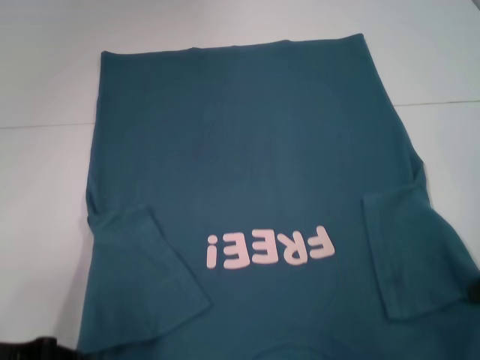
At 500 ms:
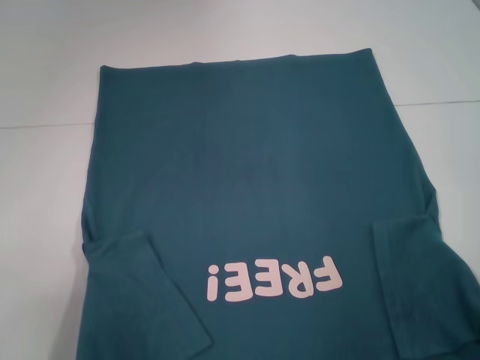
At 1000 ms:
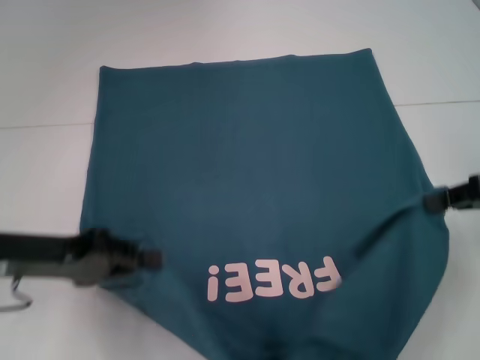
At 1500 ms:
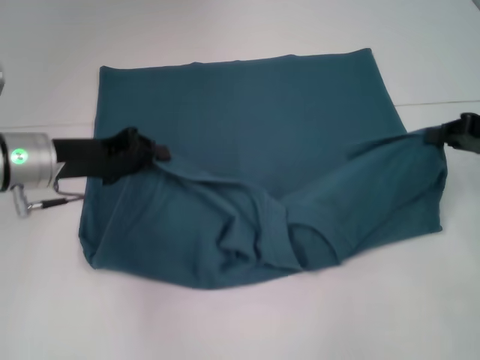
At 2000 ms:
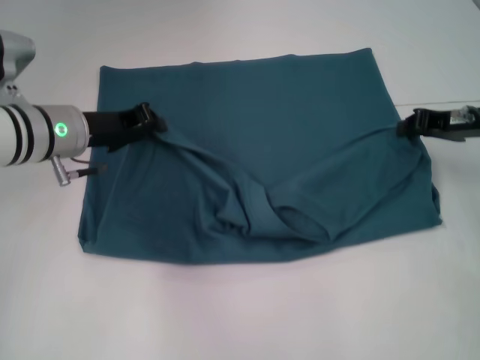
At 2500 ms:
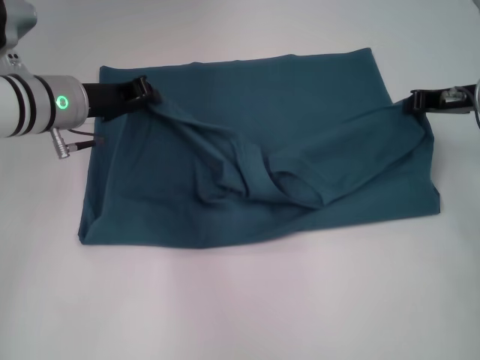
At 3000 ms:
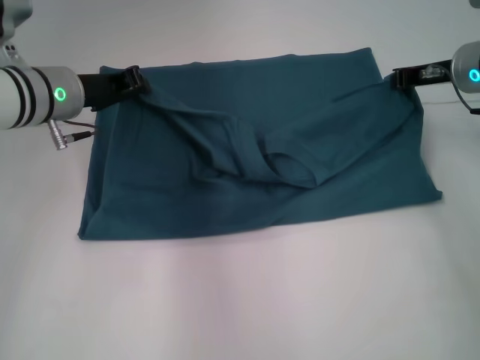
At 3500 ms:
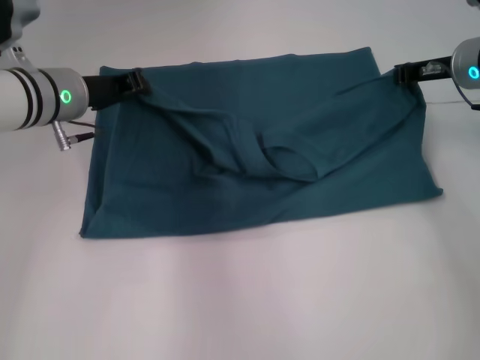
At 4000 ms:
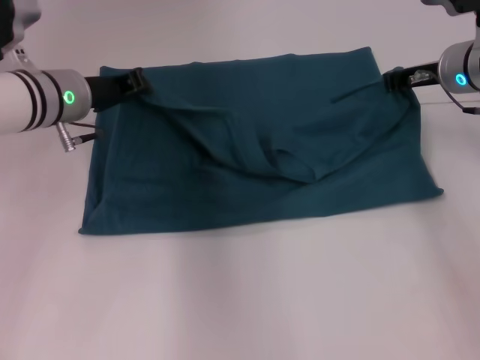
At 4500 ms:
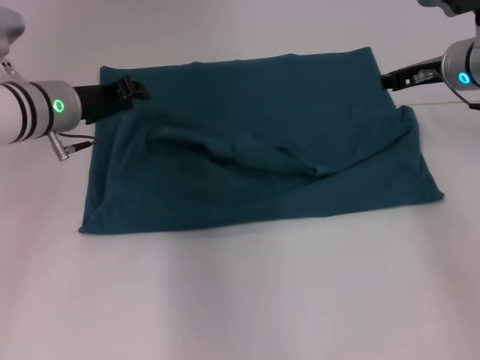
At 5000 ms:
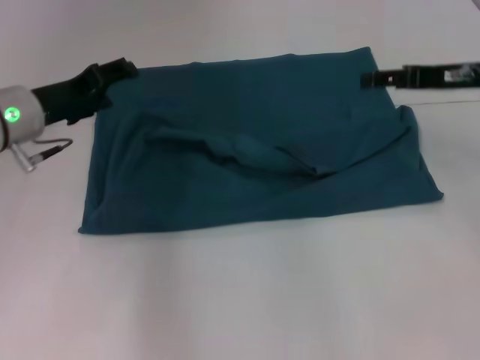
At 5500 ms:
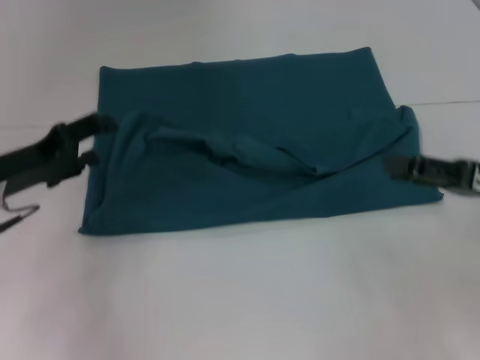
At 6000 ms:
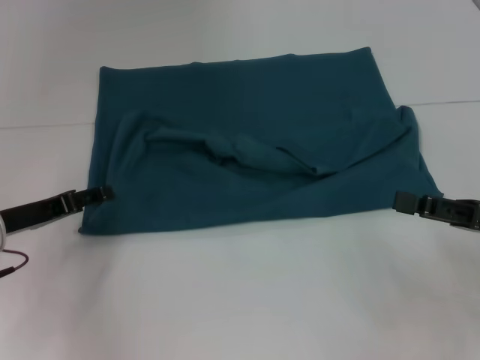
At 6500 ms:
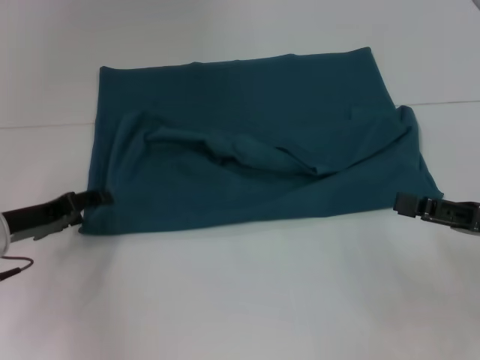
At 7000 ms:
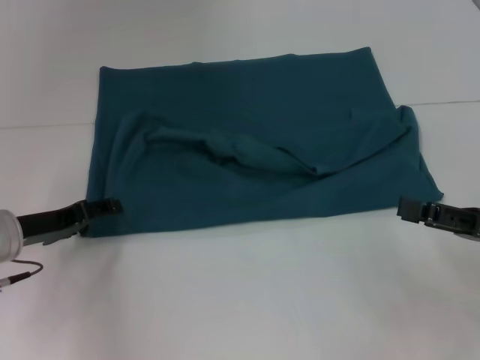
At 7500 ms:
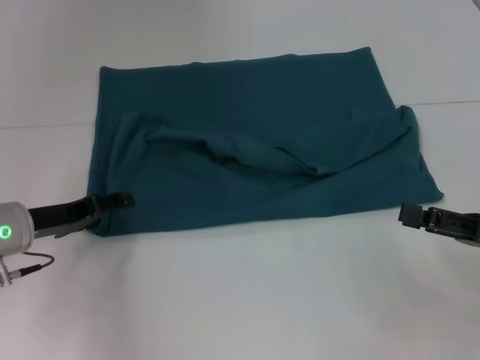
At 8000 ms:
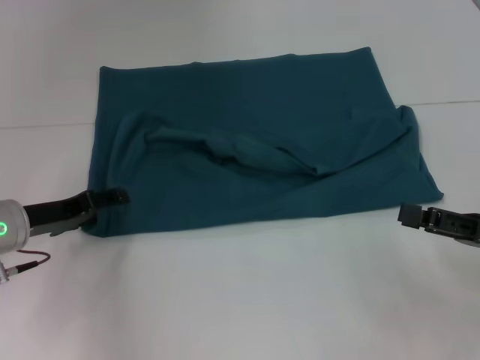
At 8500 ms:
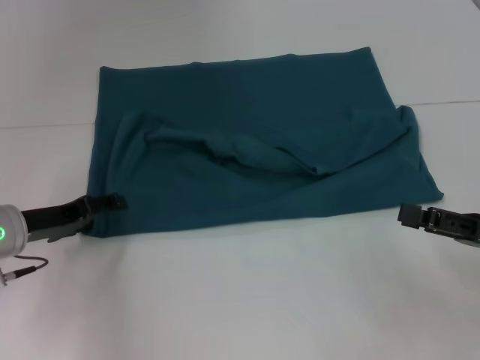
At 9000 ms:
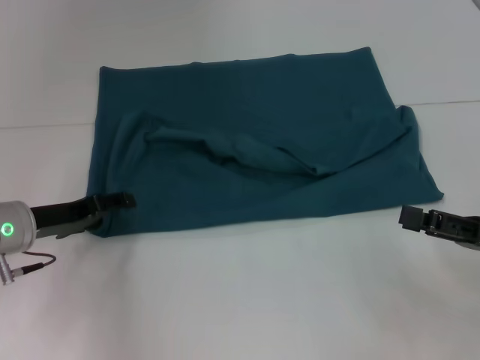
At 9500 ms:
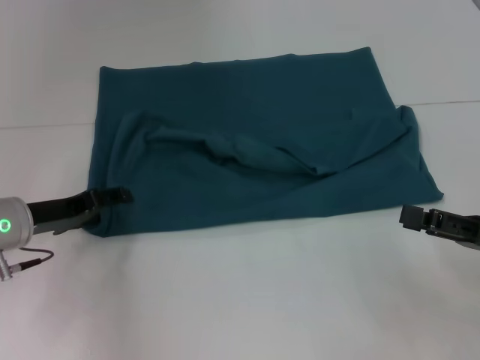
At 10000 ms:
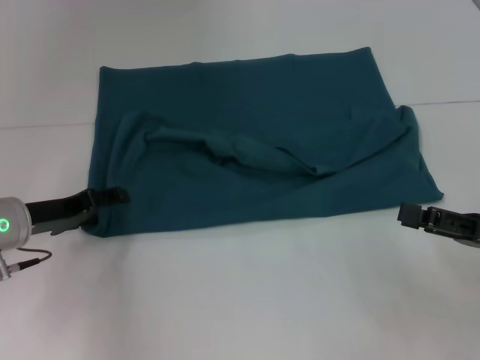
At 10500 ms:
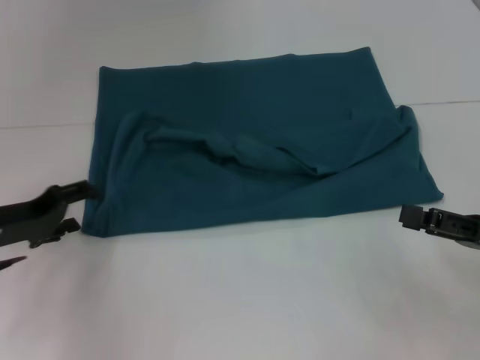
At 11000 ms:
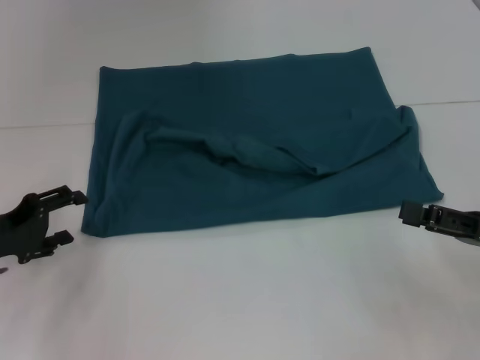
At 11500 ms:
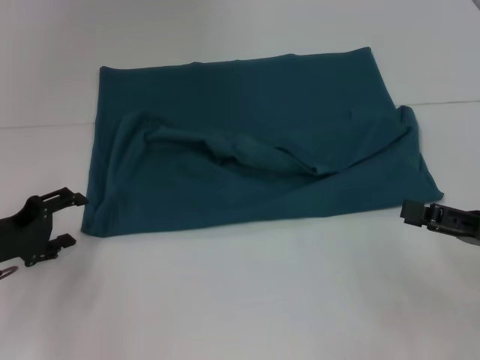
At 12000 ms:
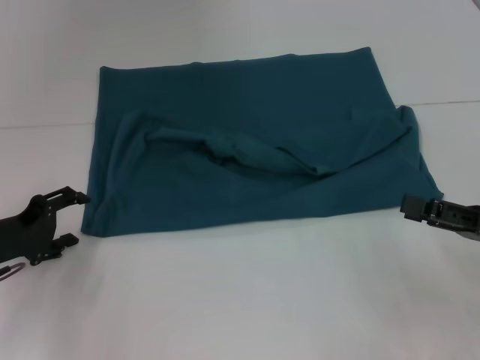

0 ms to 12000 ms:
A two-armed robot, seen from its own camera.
Step, 0 ms to 4500 ms: Fold the clothes to the left.
Step, 0 ms to 4500 ms: Fold the clothes to the right.
0 ms to 2000 ms: The right gripper shifts approximately 10 cm forward; the left gripper moves forward and to the right, about 20 cm.
2000 ms to 4000 ms: The right gripper goes approximately 5 cm forward.
4000 ms to 6000 ms: The right gripper travels backward by approximately 20 cm, and opens. Meanwhile the left gripper heads backward, to the left and downward, covering approximately 15 cm, and opens.
6000 ms to 8000 ms: The grippers make only small movements.
8000 ms to 10000 ms: Neither gripper changes place.
10000 ms to 12000 ms: The left gripper moves some 5 cm.

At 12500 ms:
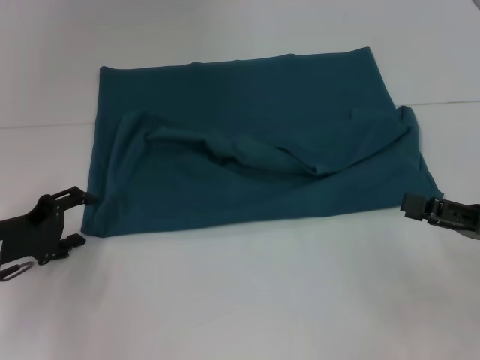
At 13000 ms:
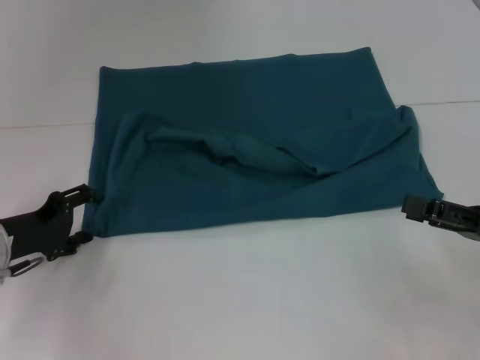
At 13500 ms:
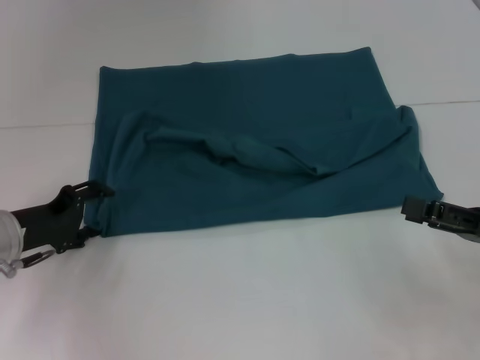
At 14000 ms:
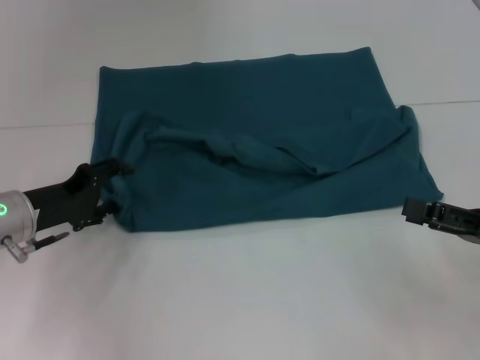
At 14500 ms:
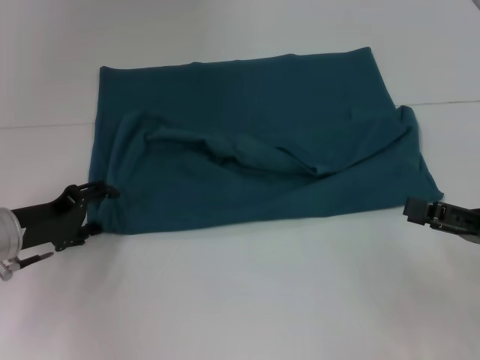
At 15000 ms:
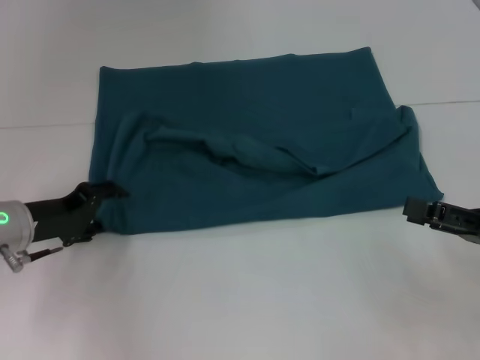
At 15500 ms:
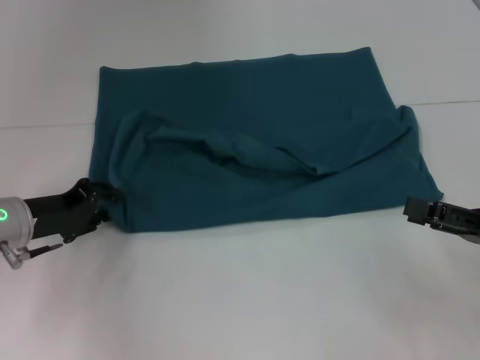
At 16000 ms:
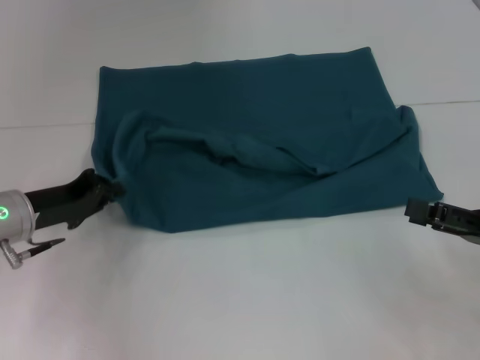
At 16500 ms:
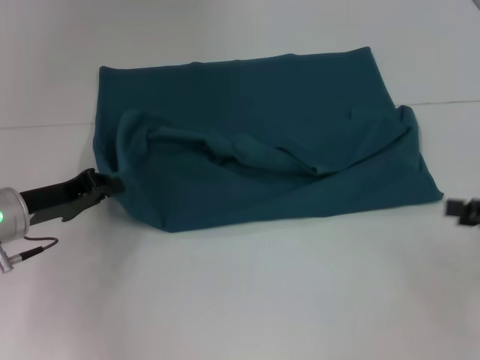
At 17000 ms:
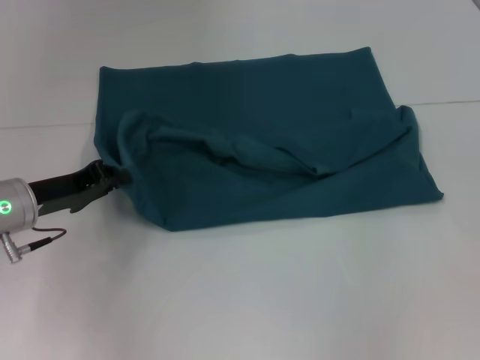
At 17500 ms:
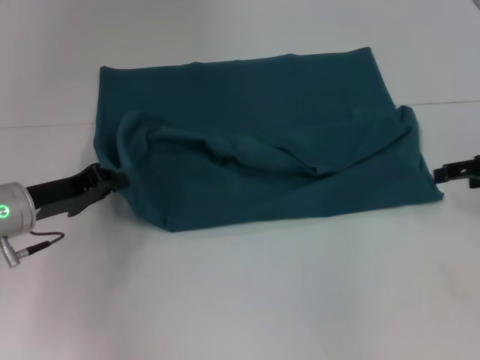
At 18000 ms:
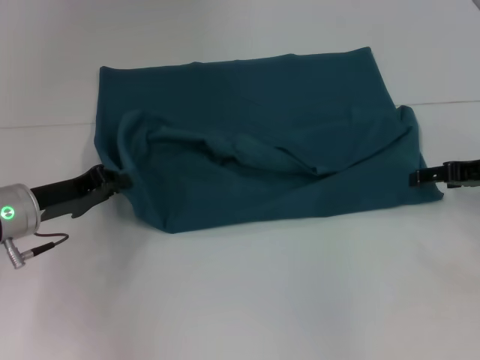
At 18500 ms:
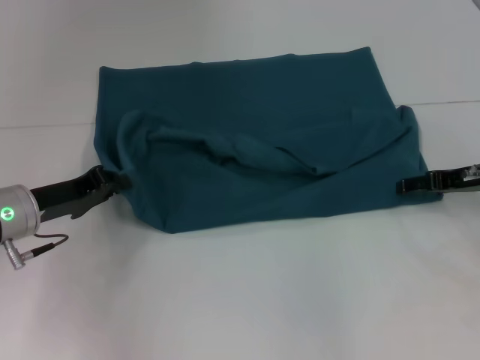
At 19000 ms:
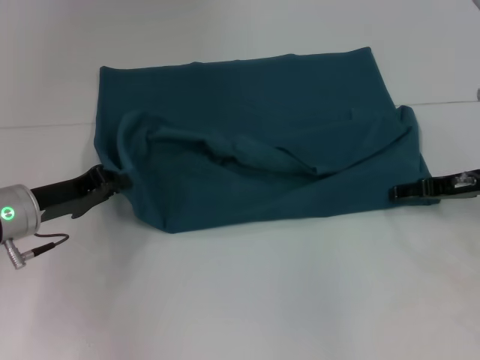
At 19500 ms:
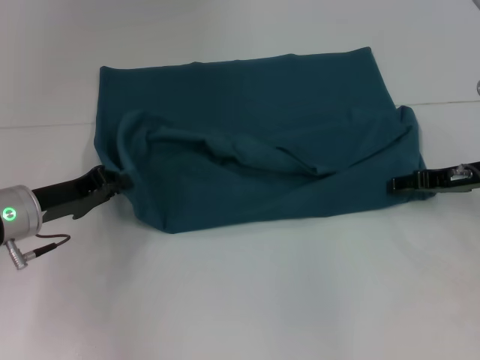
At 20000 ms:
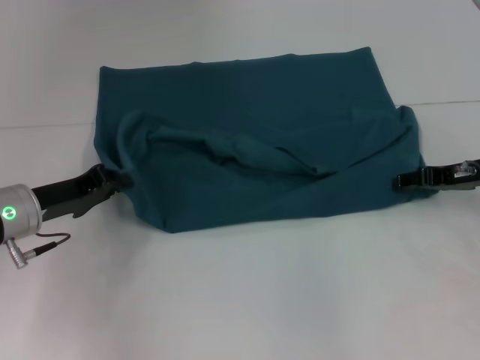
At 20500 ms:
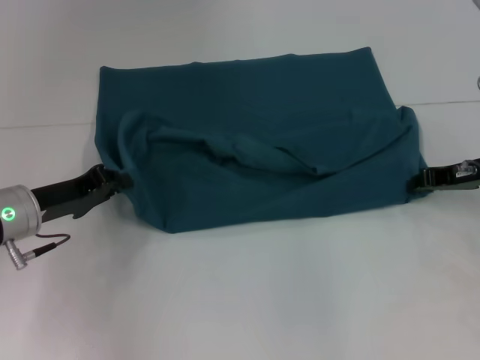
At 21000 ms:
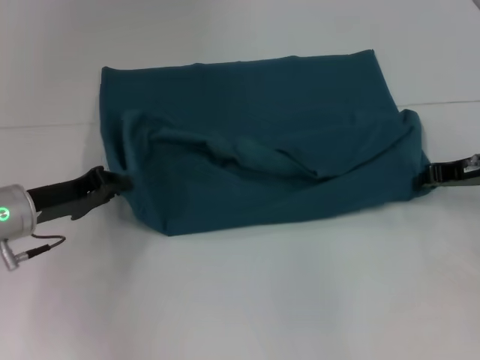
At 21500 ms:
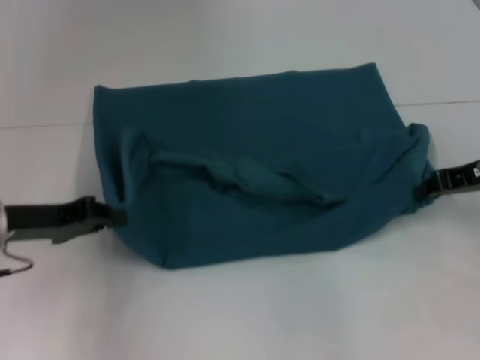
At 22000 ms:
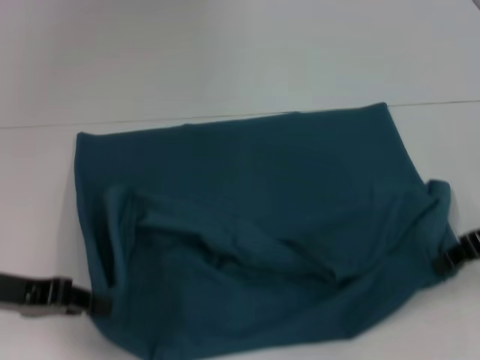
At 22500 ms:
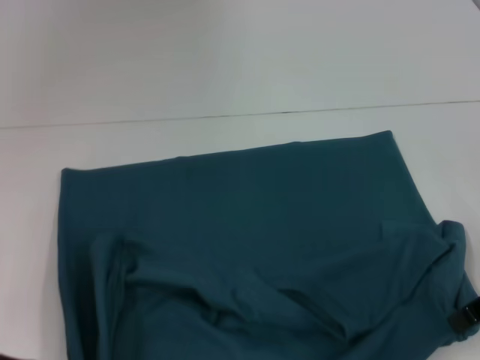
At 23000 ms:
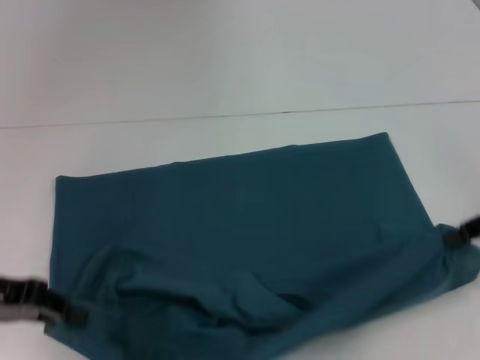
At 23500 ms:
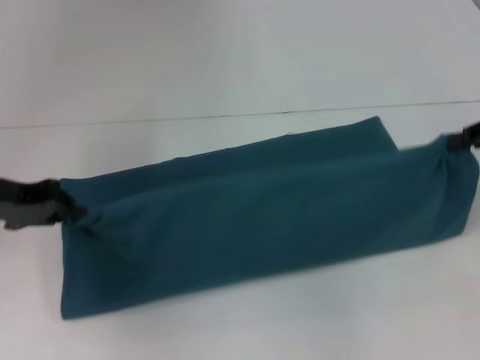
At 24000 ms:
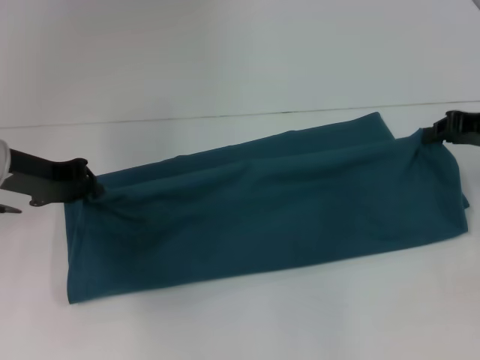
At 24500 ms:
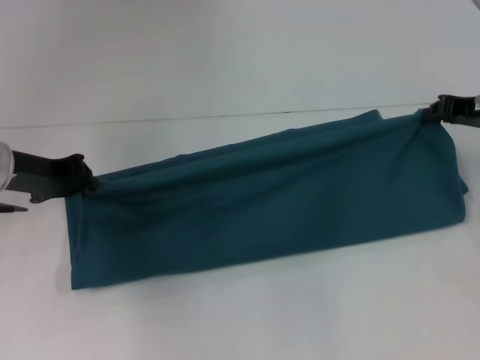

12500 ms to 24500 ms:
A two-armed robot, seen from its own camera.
Step, 12500 ms to 22500 ms: Pull the clothes with your left hand.
Step, 12500 ms to 22500 ms: Pull the clothes with your right hand.
12500 ms to 14500 ms: The grippers move only a little.
14500 ms to 16500 ms: The right gripper changes place by some 5 cm, while the left gripper closes its fingers.
16500 ms to 18500 ms: The right gripper is displaced forward and to the left by some 15 cm.
18500 ms to 20500 ms: The right gripper closes its fingers.
20500 ms to 22500 ms: The right gripper goes roughly 10 cm backward and upward, and closes up; the left gripper moves backward, approximately 10 cm.
22500 ms to 24500 ms: Both grippers move forward, about 15 cm.

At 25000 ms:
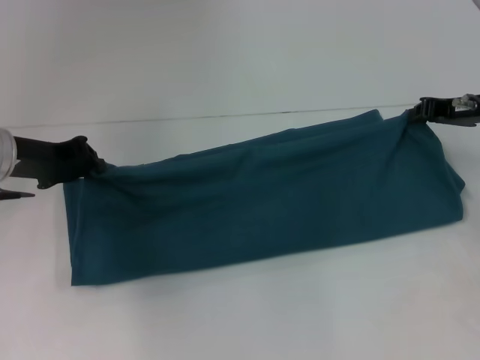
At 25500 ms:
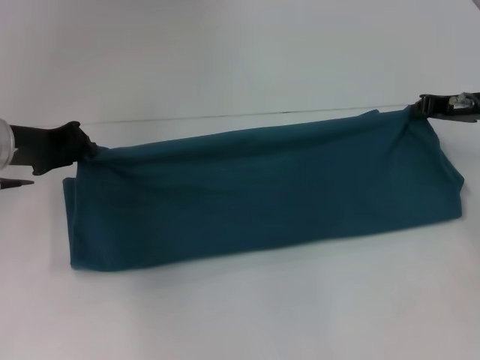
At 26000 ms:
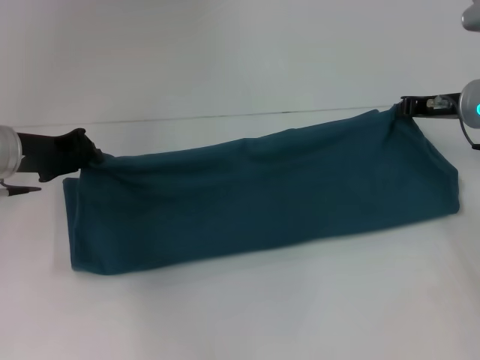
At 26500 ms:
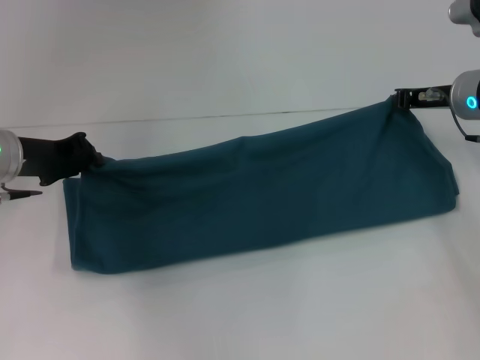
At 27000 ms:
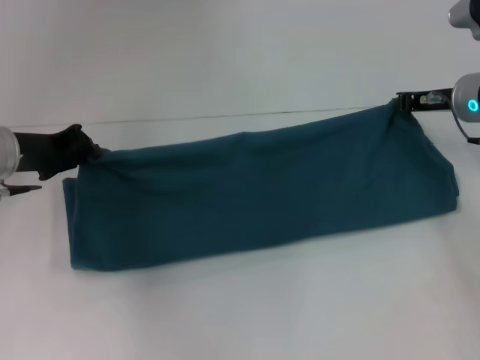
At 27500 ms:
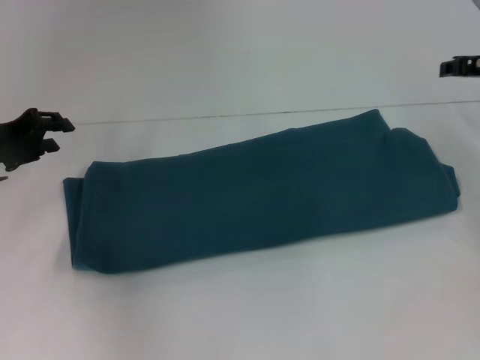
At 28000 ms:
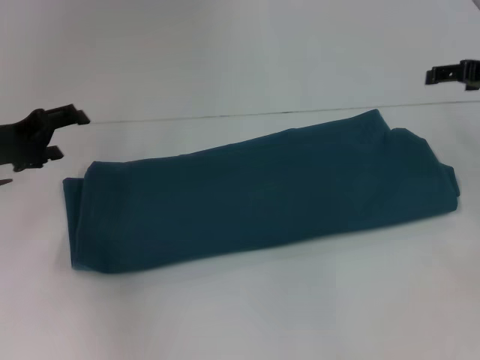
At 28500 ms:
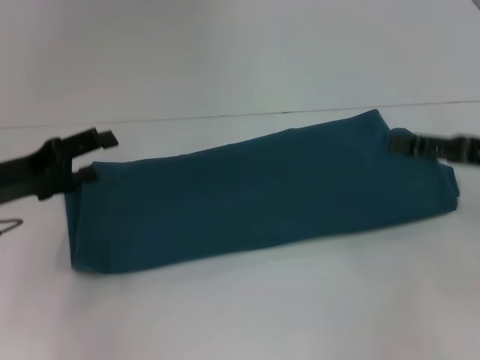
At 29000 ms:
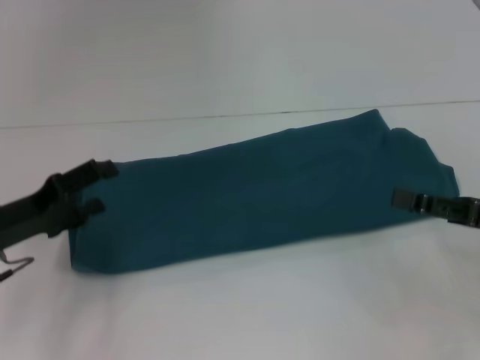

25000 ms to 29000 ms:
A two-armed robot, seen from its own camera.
Step, 25000 ms to 27000 ms: Fold the clothes to the right.
25000 ms to 27000 ms: There are only small adjustments of the grippers.
27000 ms to 29000 ms: The right gripper travels backward by approximately 20 cm, and opens up. Meanwhile the left gripper shifts approximately 10 cm backward and downward, and opens.
